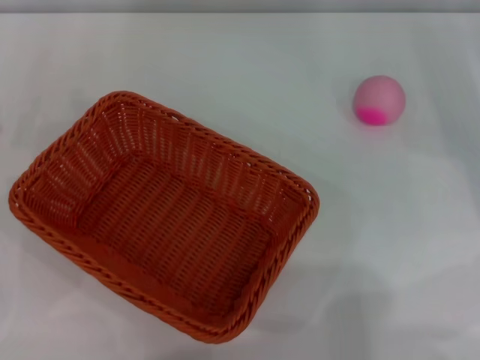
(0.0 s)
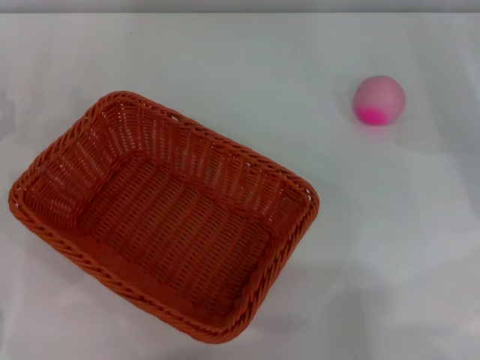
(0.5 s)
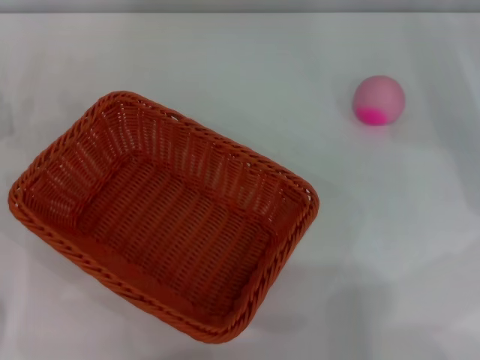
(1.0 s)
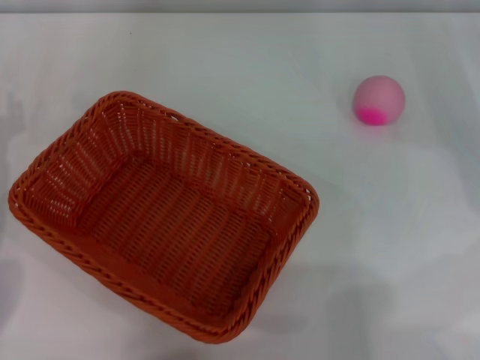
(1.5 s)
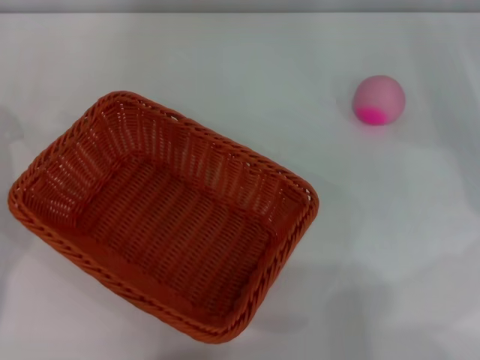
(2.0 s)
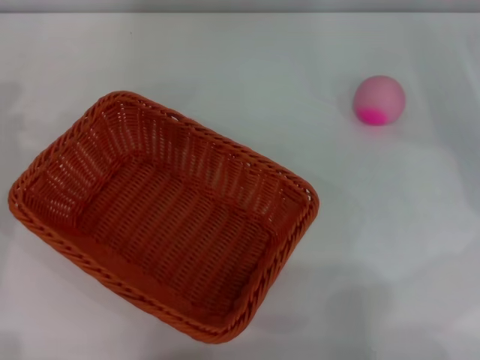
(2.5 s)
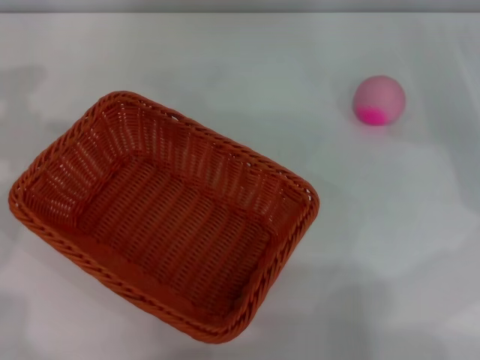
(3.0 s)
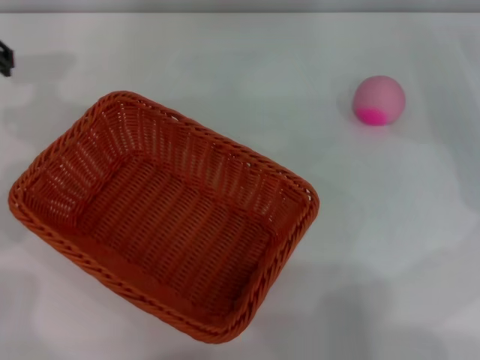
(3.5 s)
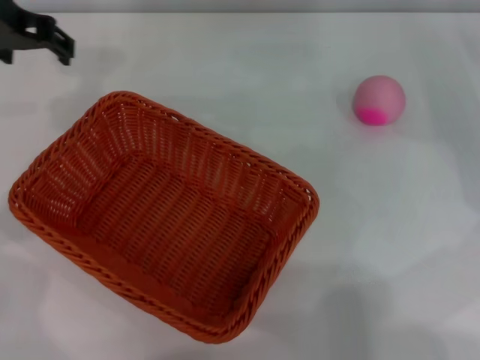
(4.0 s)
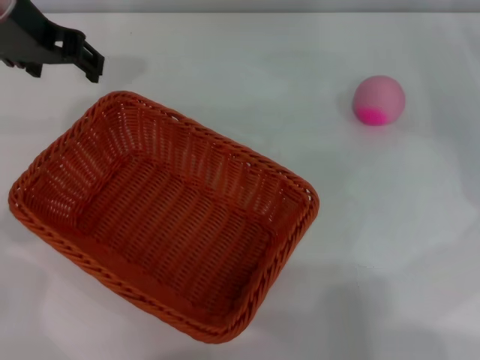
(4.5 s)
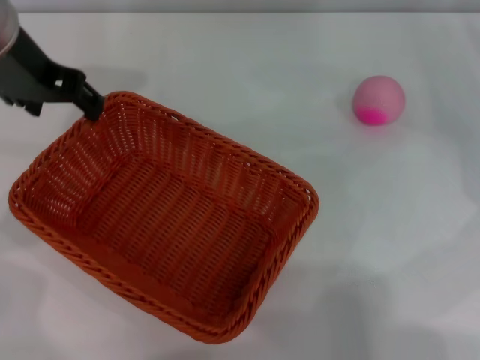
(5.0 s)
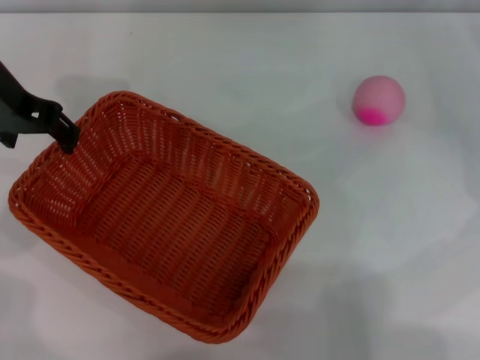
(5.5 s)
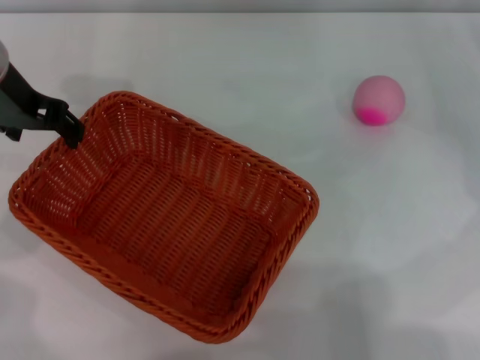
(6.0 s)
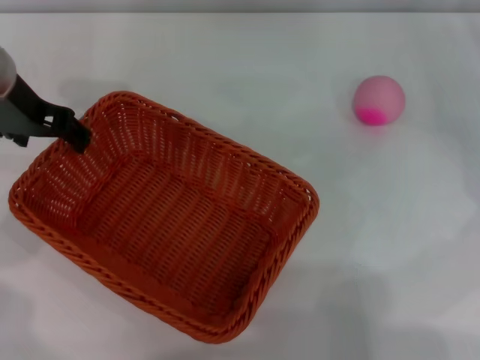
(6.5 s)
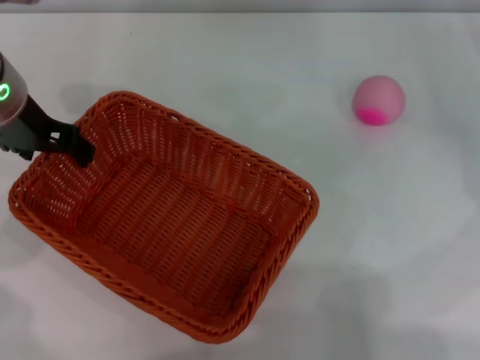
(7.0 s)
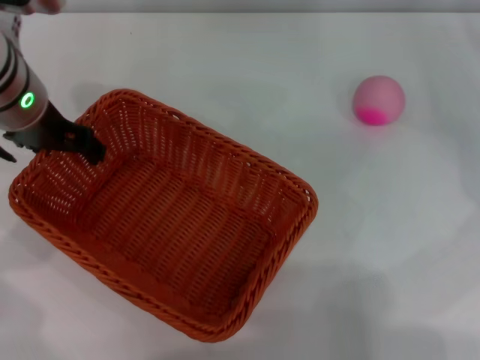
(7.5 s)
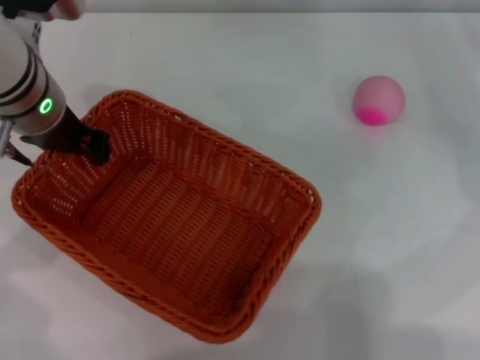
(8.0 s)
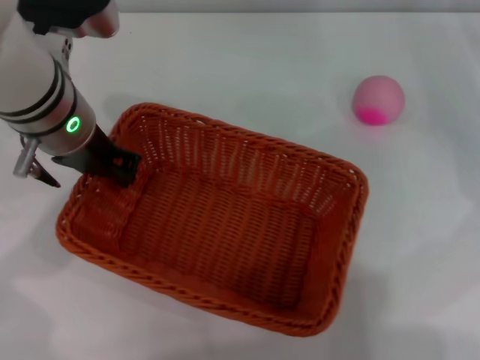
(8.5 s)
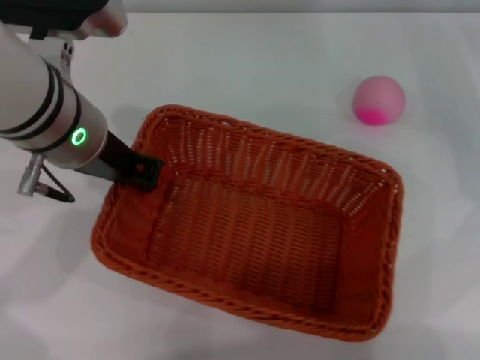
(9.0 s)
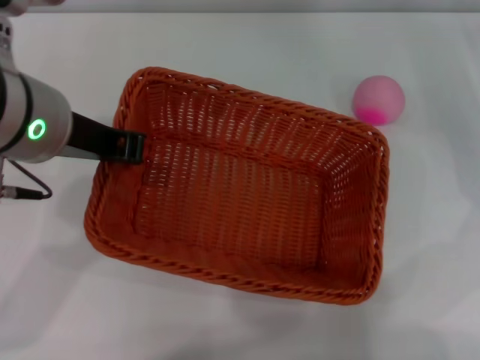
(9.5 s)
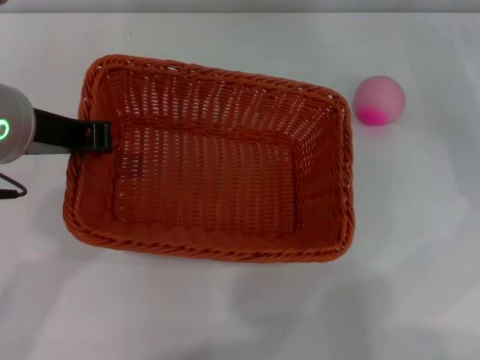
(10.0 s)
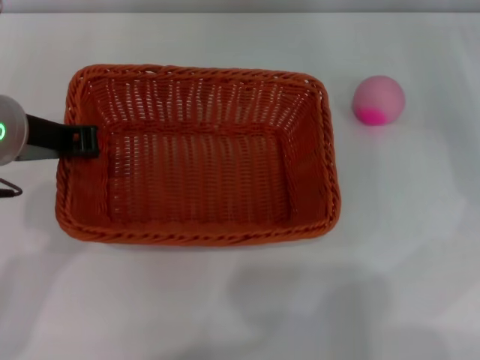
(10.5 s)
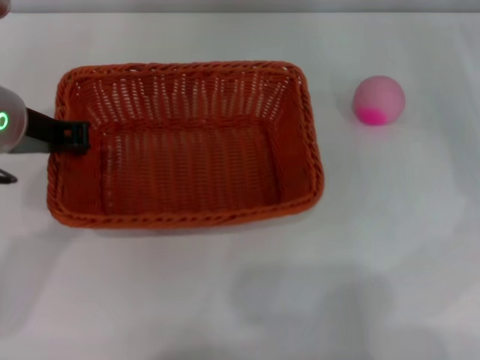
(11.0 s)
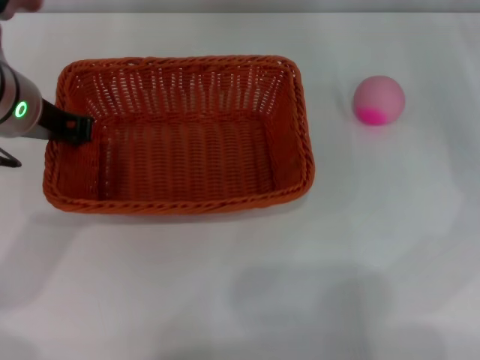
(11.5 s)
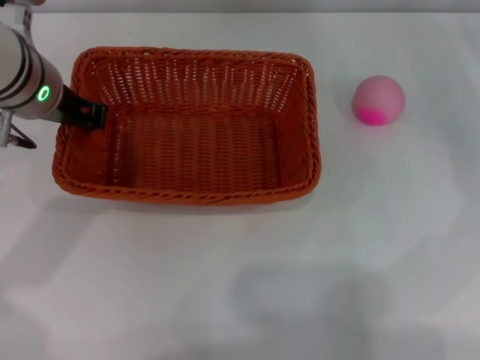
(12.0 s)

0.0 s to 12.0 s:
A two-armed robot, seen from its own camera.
Step, 0.0 to 9.5 s: Pick up the light basket with the left gripper.
2.0 to 4.0 s: The left gripper moves to the right, upward and forward, some 15 cm, and opens its fingers.
4.0 to 6.0 s: The grippers make only small movements.
6.0 to 8.0 s: The left gripper goes about 5 cm downward.
8.0 to 10.0 s: The left gripper shifts approximately 10 cm backward, and closes.
10.0 to 12.0 s: The left gripper is displaced forward by about 10 cm.

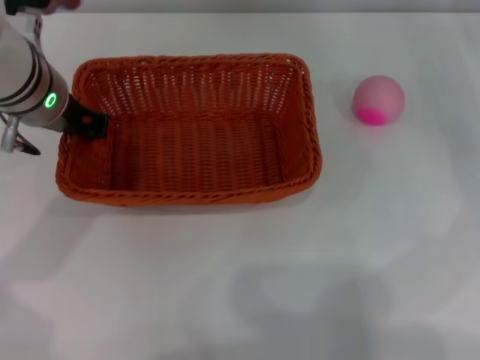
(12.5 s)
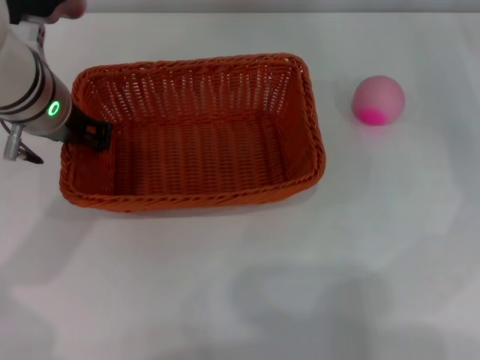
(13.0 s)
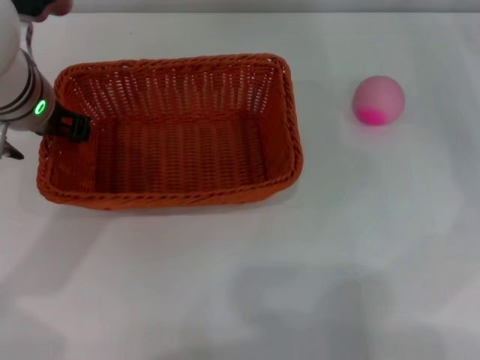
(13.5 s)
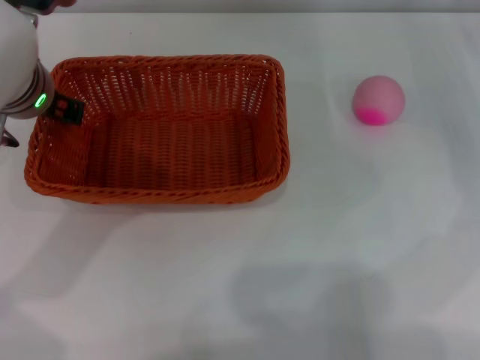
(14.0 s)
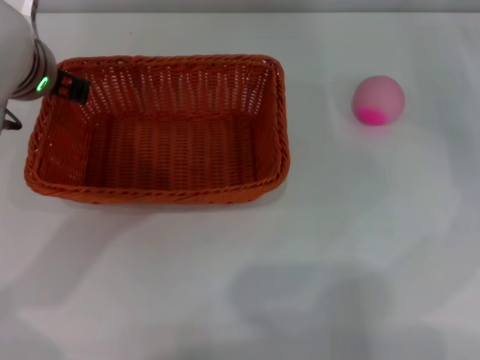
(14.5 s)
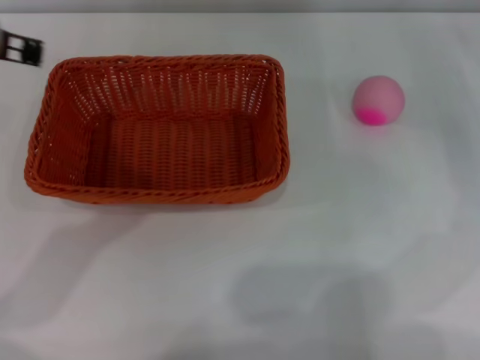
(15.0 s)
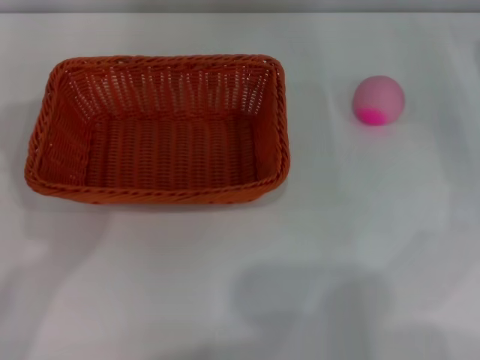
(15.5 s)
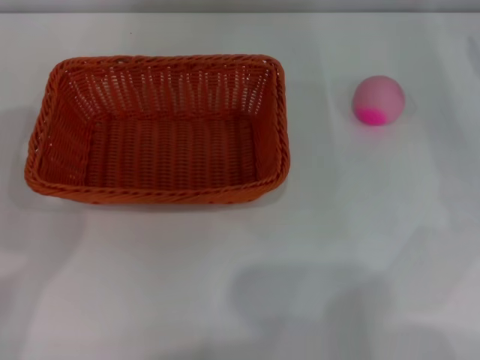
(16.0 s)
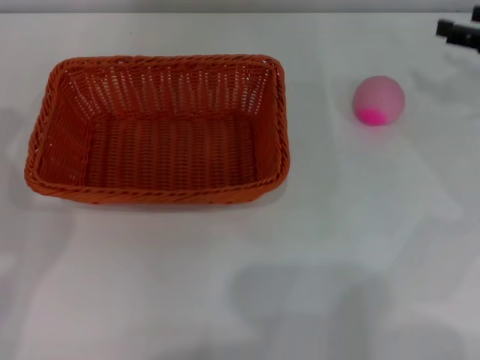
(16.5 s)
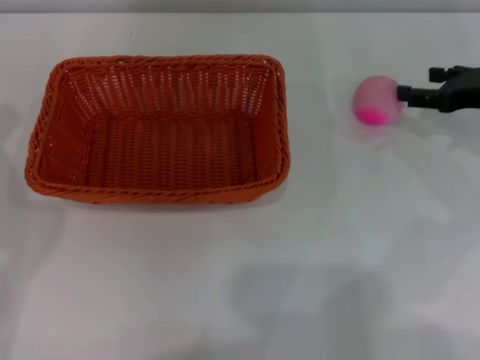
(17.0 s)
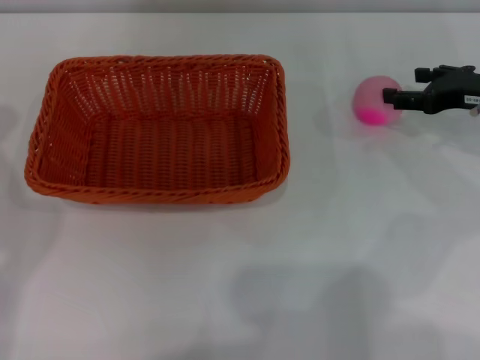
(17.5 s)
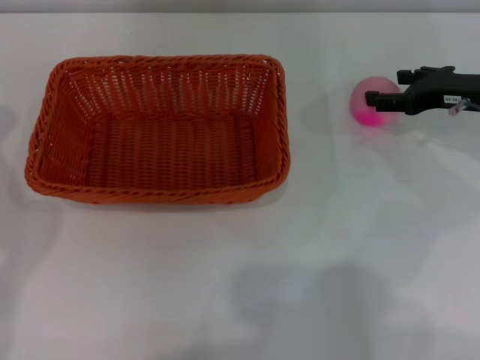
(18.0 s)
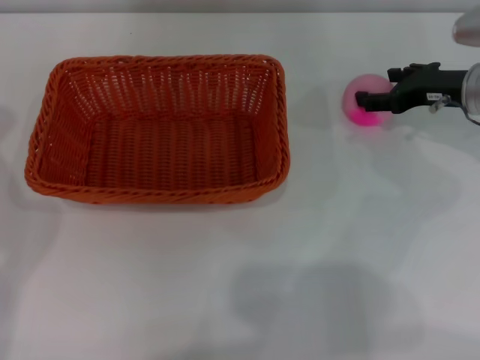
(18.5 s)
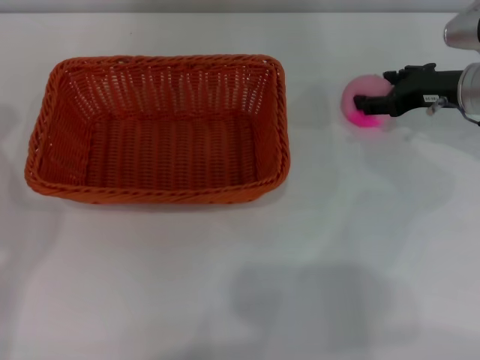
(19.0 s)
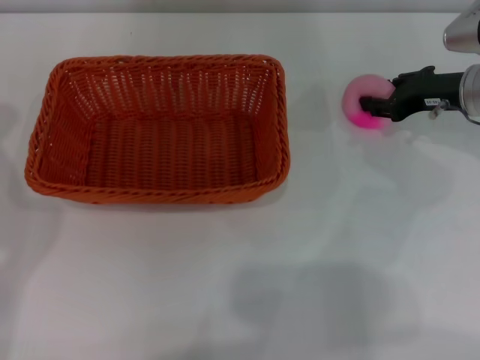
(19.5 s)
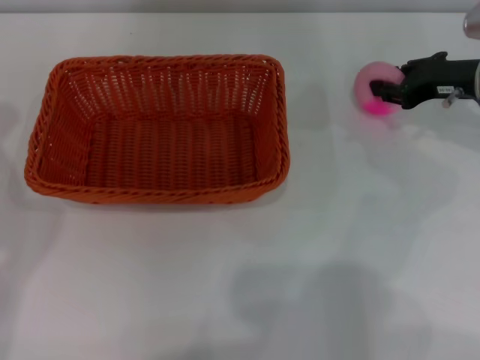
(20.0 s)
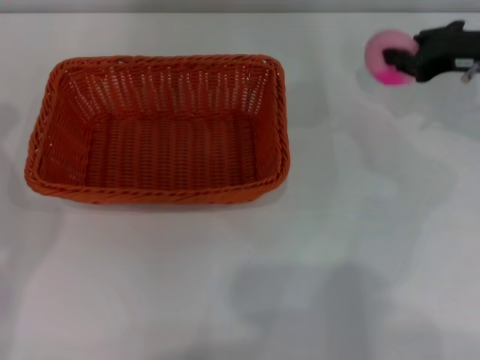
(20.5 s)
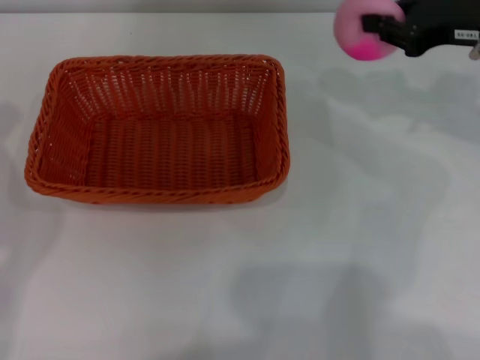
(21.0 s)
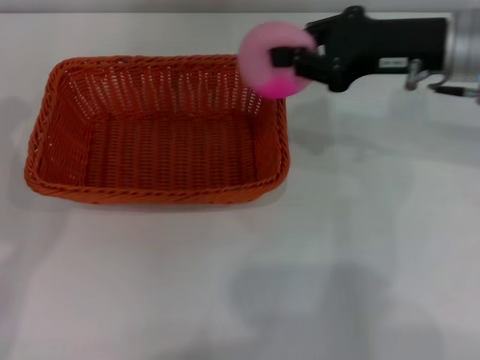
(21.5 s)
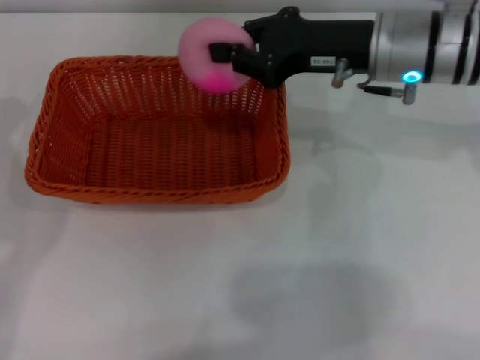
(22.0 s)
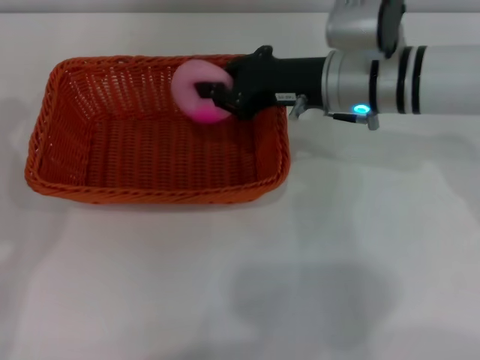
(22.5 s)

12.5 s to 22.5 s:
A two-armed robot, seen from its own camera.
Step, 15.0 to 20.0 s: Pick up the peach with the left gripper.
12.5 to 14.5 s: The left gripper opens.
14.5 to 16.5 s: The left gripper is displaced to the left by some 15 cm; the right gripper moves some 5 cm, and opens.
16.5 to 18.5 s: The right gripper moves to the left, roughly 10 cm.
18.5 to 20.5 s: The right gripper heads upward, covering roughly 5 cm, and closes up.
20.5 to 22.5 s: The right gripper shifts approximately 15 cm to the left.

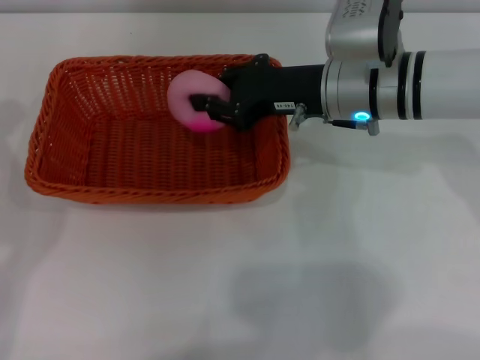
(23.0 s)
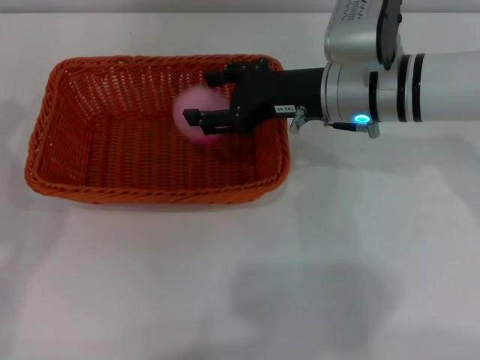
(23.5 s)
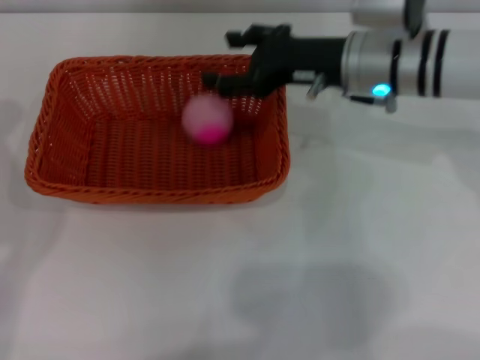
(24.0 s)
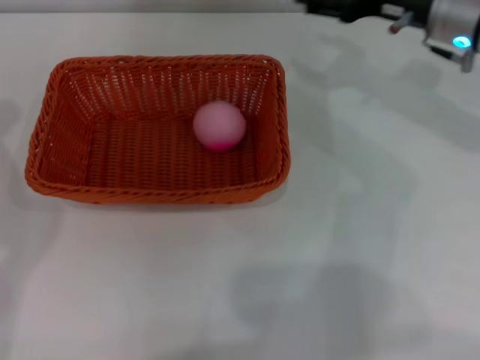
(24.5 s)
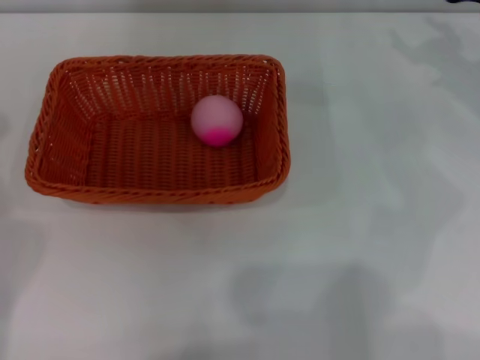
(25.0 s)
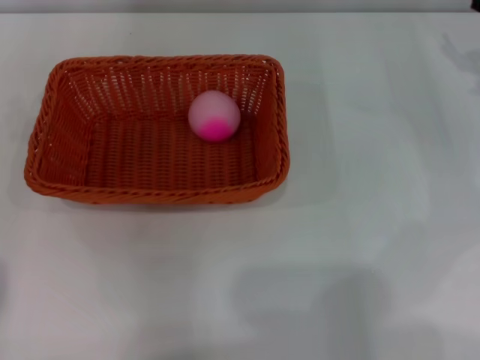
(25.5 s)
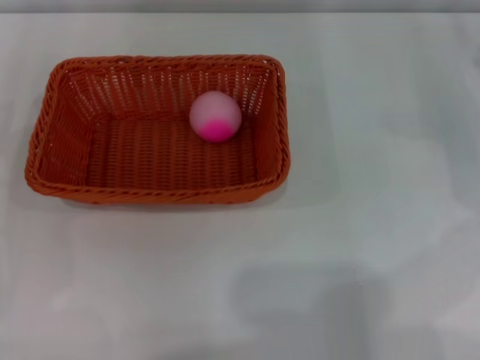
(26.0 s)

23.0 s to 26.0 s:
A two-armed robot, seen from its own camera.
23.0 to 24.5 s: The right gripper heads to the right, covering roughly 10 cm, and opens its fingers.
24.5 to 26.0 s: The right gripper shifts some 15 cm to the right and downward. The left gripper shifts approximately 15 cm downward.
